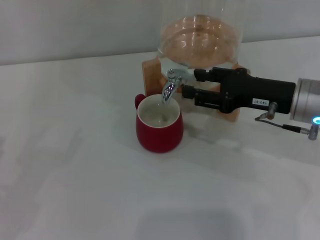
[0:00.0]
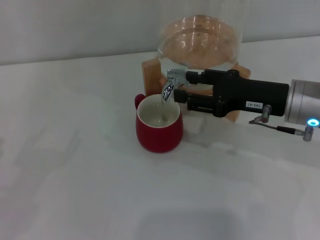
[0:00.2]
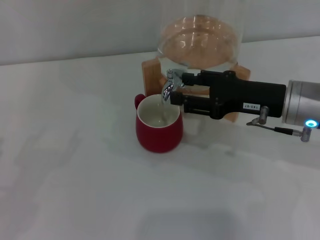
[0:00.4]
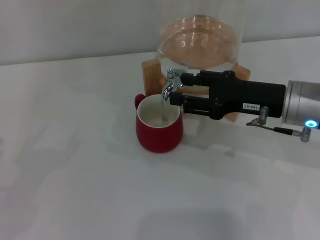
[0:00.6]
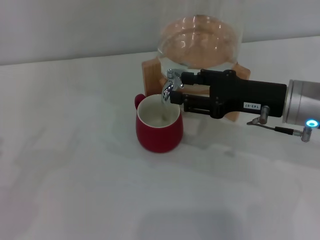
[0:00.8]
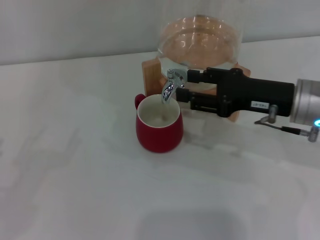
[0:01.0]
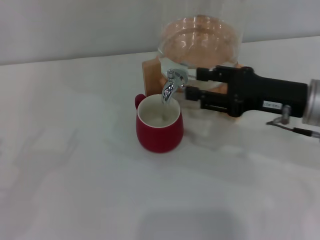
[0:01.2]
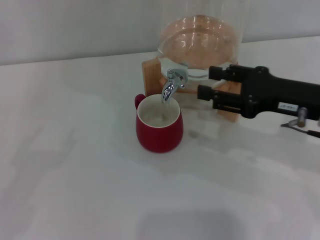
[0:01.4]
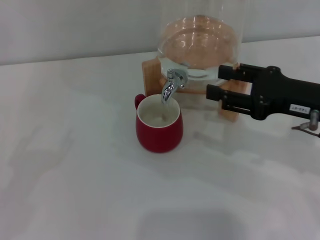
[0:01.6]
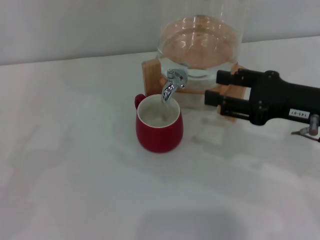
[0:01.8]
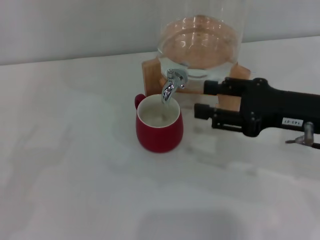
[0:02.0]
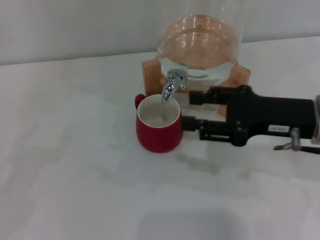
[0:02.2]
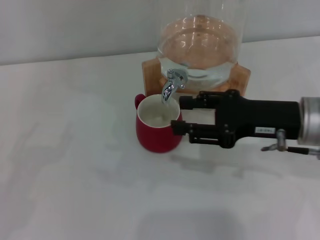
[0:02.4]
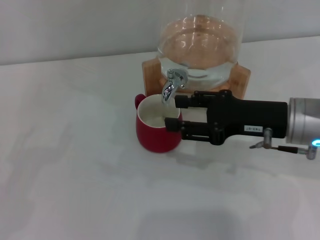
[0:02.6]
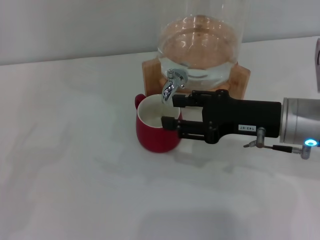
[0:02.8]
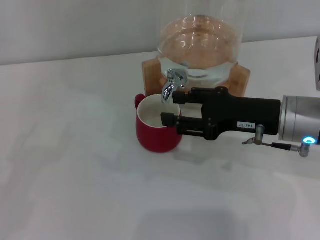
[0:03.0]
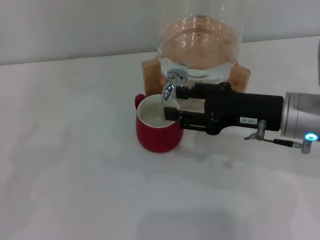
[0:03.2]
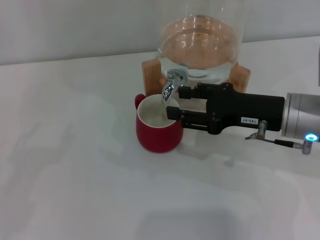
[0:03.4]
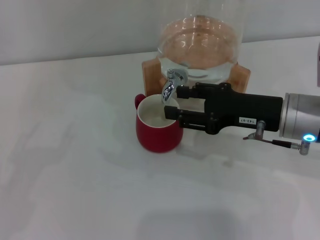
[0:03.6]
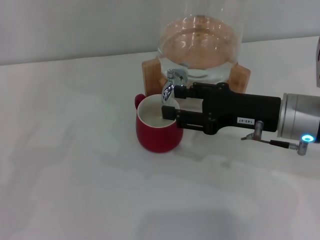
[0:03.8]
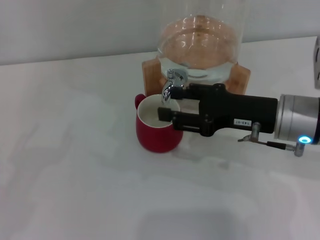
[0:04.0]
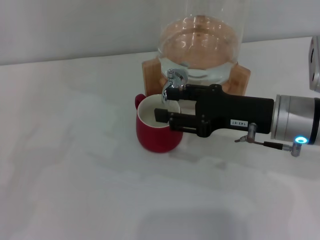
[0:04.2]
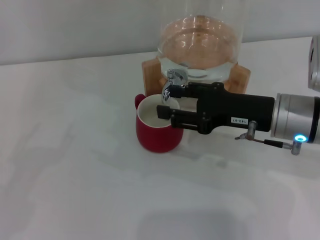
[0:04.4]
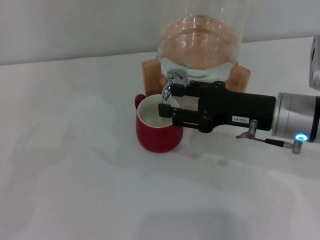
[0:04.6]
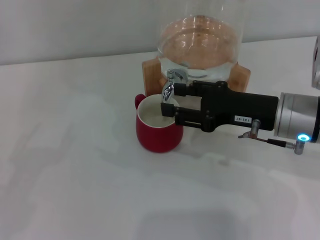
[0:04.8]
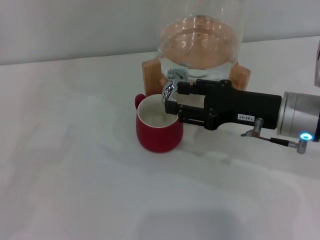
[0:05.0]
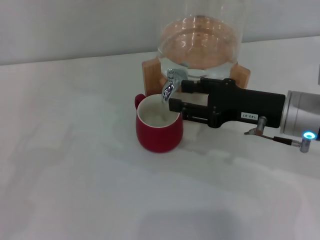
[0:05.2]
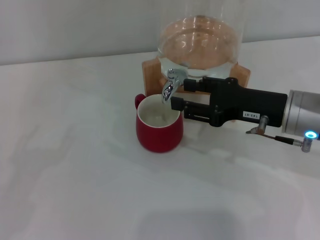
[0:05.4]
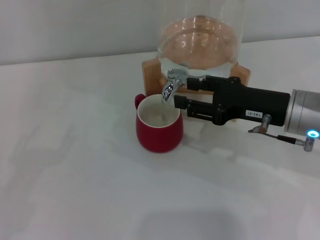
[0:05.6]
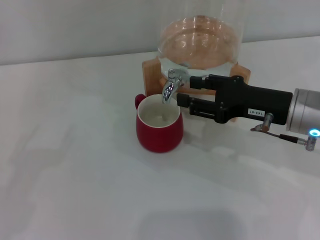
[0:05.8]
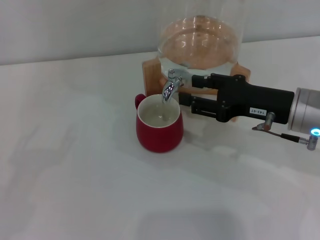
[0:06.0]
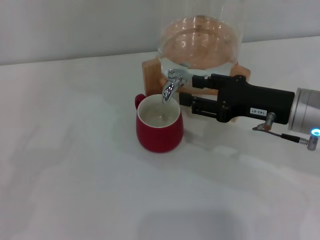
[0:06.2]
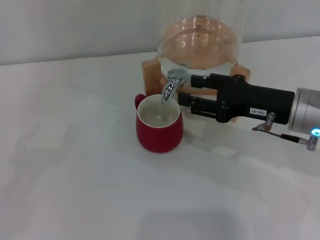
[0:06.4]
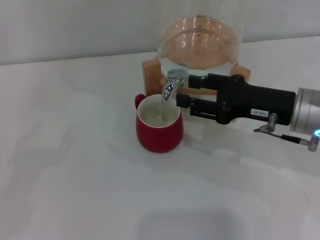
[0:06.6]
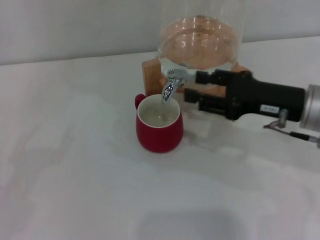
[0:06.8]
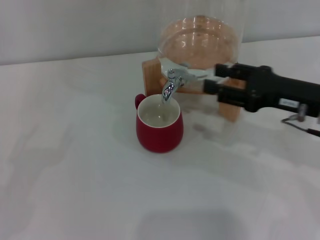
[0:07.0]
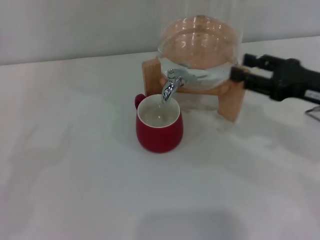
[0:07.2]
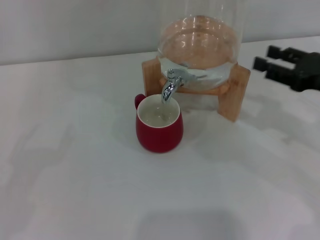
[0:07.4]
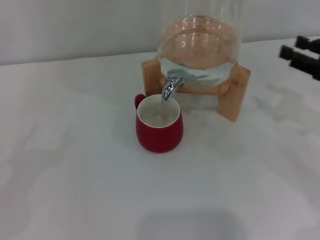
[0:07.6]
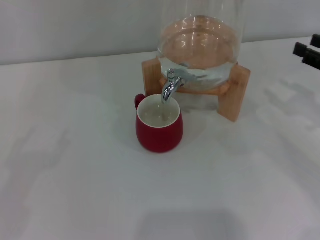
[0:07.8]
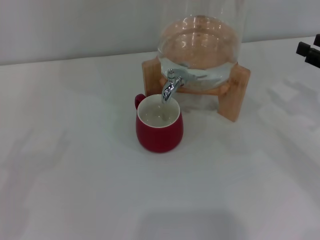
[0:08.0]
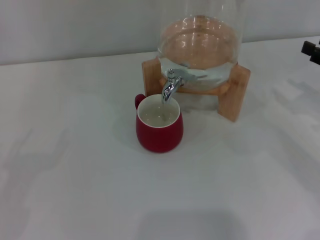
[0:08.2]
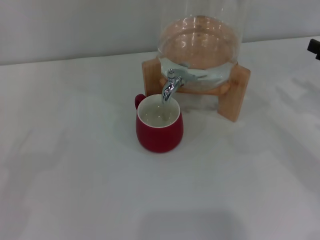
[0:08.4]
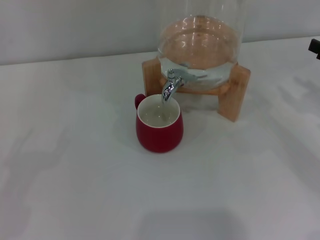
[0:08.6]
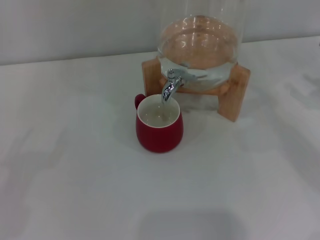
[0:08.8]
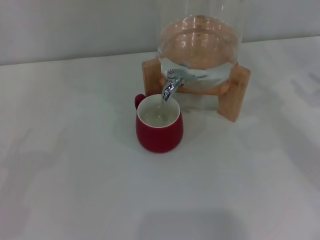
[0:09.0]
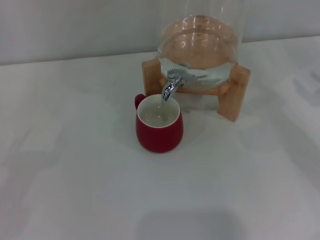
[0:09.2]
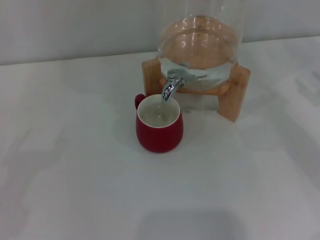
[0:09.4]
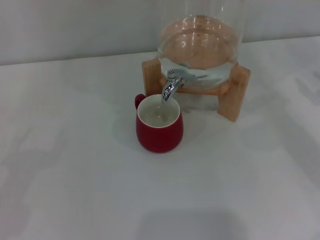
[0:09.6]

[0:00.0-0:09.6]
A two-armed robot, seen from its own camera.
Task of the whole recording: the left gripper pick up the red cup and place it horizontally under the faucet, the right gripper turn on the faucet to fill the cup, and then turn off the faucet.
Step, 0:01.2 to 0:06.8: Close the dispenser valve with the right gripper.
0:00.0 to 0:01.6: The right gripper moves approximately 5 cm.
0:01.6 to 0:03.2: The right gripper shifts by roughly 5 cm.
0:03.2 to 0:04.8: Both grippers stay about where they are.
0:04.8 to 0:06.4: The grippers stay close to where they were, moving slightly.
0:06.4 to 0:08.0: The right gripper travels to the right by some 15 cm.
